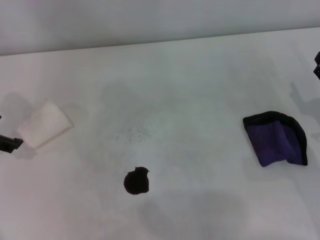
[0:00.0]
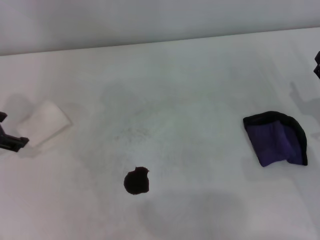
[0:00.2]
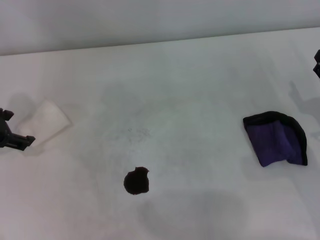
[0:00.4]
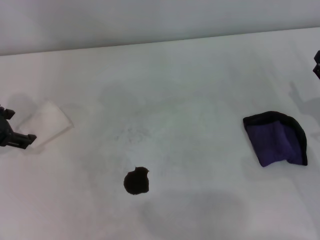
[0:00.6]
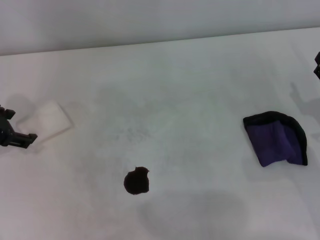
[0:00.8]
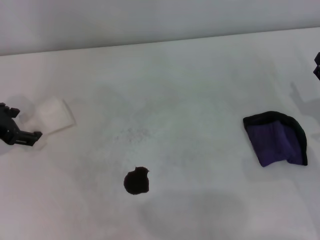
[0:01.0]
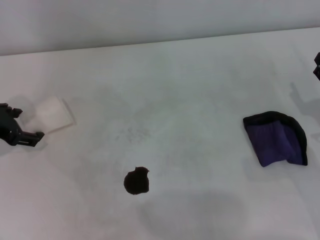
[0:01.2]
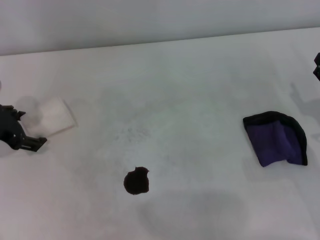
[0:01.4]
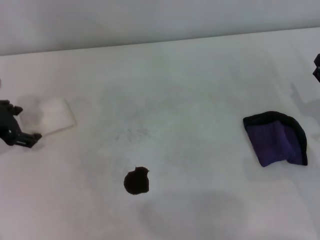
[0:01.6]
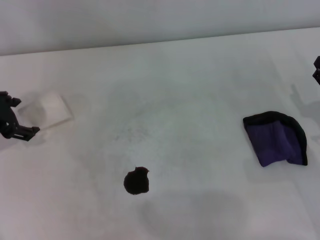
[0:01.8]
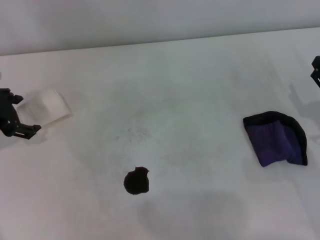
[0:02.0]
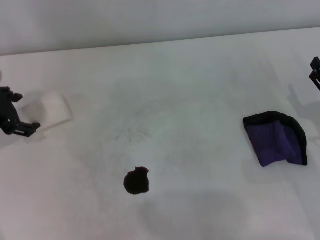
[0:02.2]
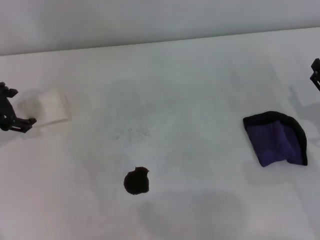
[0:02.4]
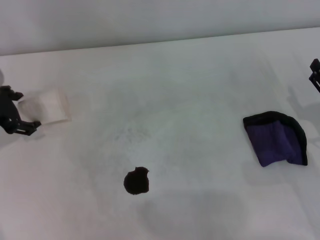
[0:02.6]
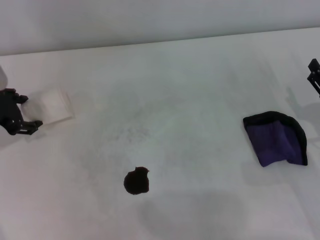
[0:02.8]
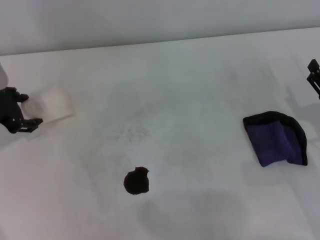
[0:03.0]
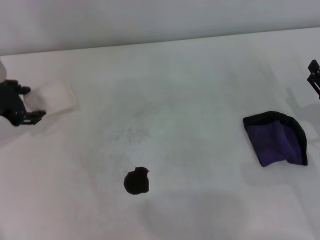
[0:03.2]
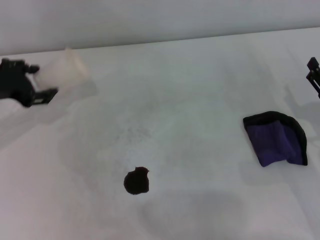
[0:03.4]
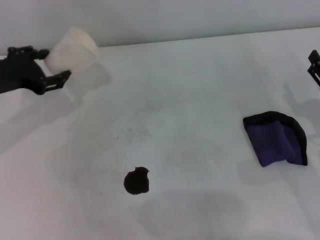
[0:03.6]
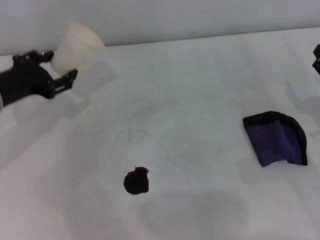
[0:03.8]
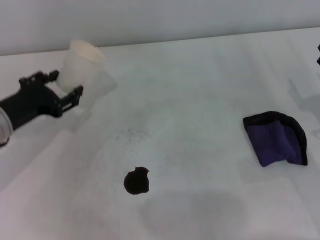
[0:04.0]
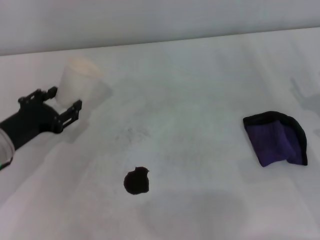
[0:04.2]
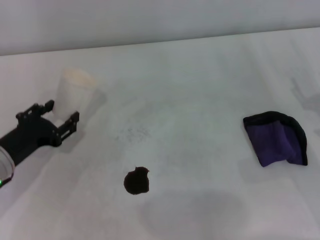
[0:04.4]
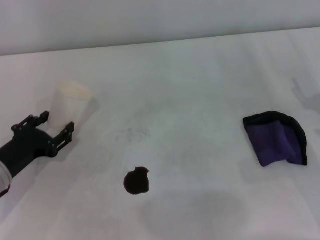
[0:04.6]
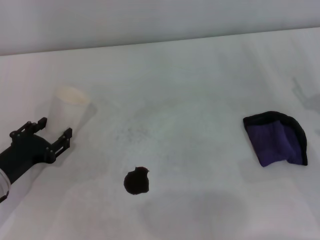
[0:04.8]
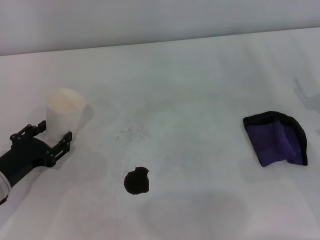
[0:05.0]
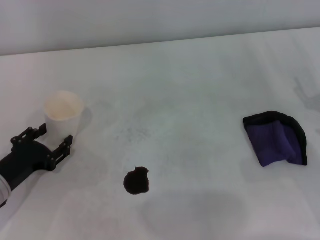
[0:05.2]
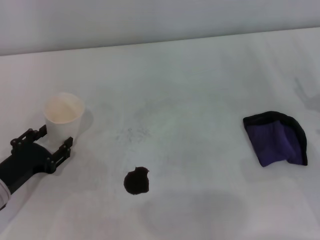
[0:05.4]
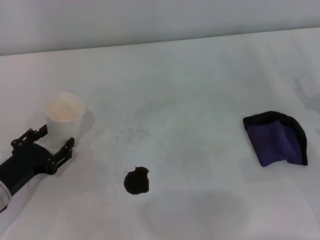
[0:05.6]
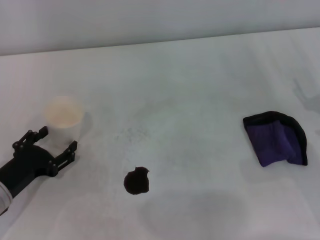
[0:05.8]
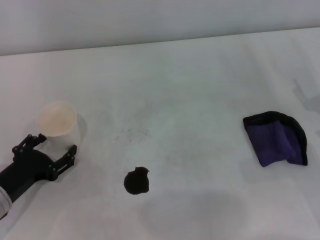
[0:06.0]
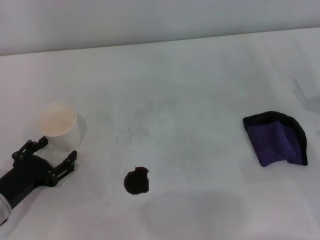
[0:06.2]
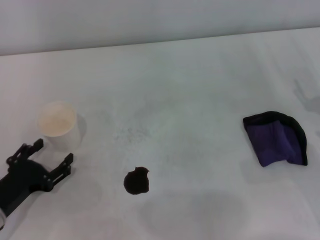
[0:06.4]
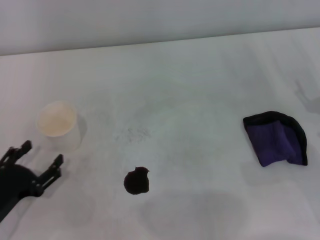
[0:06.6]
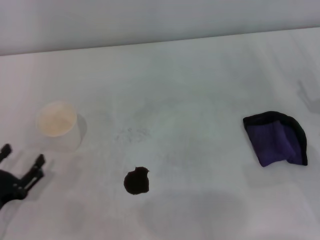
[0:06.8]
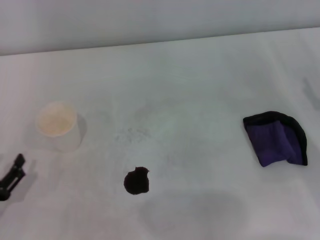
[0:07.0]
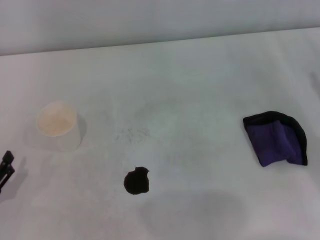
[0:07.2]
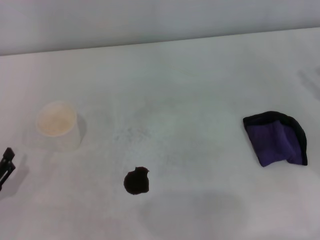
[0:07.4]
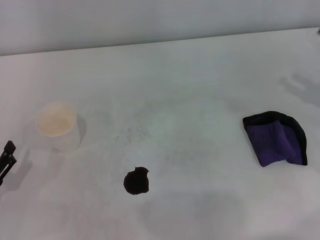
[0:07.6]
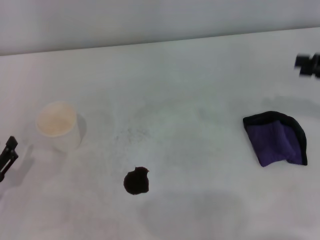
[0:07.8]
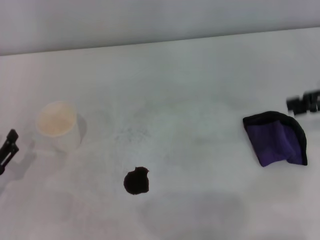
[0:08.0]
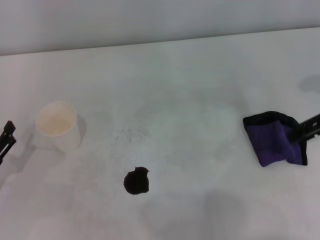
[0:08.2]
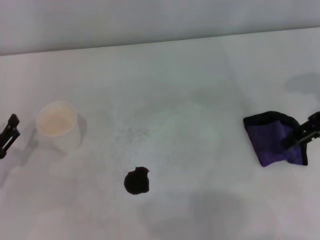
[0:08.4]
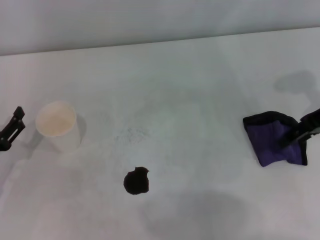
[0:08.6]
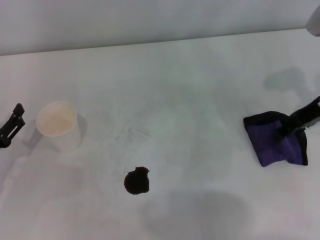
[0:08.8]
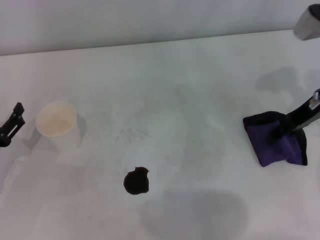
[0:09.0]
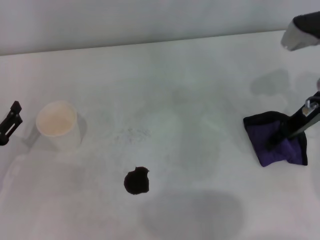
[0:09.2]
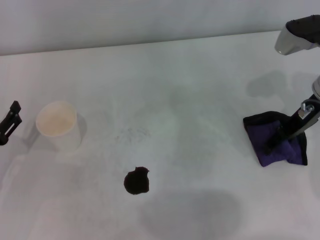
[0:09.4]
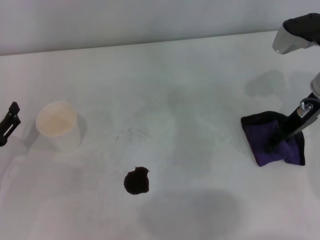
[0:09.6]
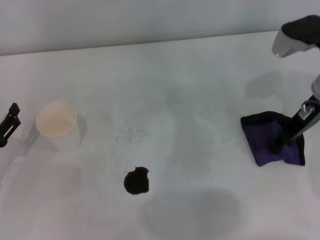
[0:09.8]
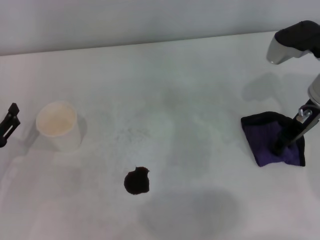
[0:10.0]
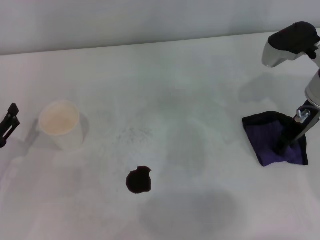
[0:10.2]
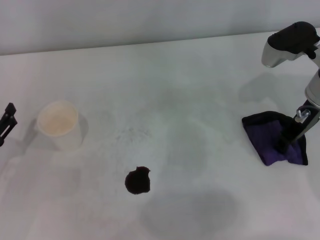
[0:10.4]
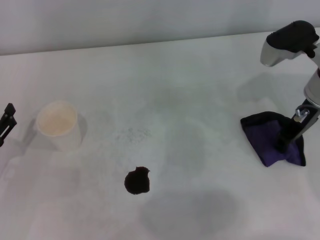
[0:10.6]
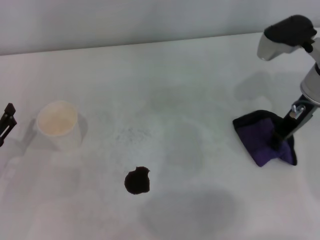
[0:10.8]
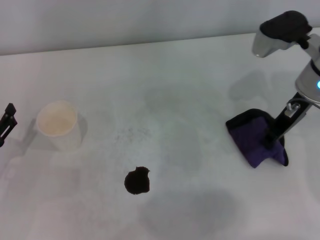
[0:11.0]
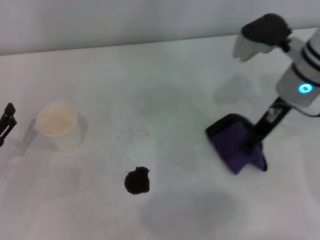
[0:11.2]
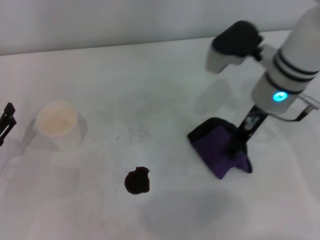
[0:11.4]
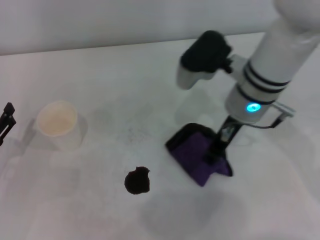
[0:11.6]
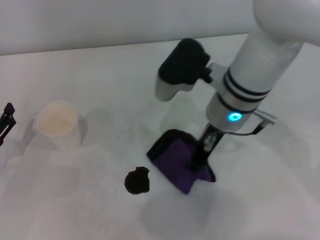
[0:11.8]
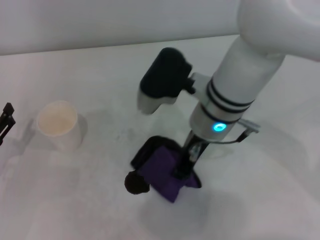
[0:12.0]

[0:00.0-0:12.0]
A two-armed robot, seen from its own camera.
Step, 0:00.0 to 0:02.8: Grasp the paper cup with the left gripper.
Step, 0:03.0 to 0:06.0: Stand the paper cup upright with the left gripper.
Step, 0:06.2 to 0:10.0: Grasp the rag with the right gripper.
0:00.0 to 0:01.6: The left gripper moves approximately 5 cm.
0:01.6 to 0:03.0: The left gripper closes.
0:03.0 to 0:04.4: The left gripper travels backward and downward by roughly 10 cm.
0:04.4 to 0:06.0: The left gripper moves some 5 cm, and opens.
0:06.0 to 0:07.6: The left gripper shifts about 5 cm backward.
0:07.6 to 0:09.0: The right gripper shifts about 15 cm to the left and forward. The left gripper goes about 5 cm forward.
0:09.0 to 0:10.4: The right gripper closes up.
0:10.4 to 0:12.0: The right gripper shifts approximately 20 cm to the left, and closes up.

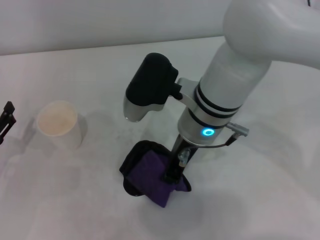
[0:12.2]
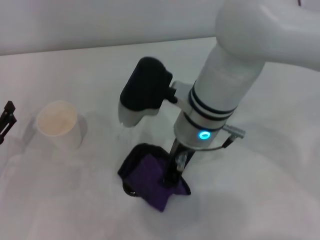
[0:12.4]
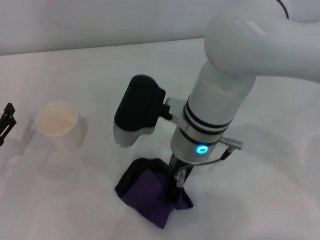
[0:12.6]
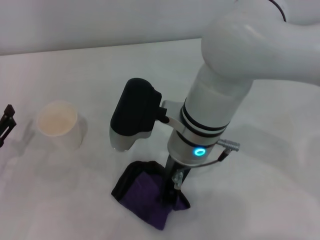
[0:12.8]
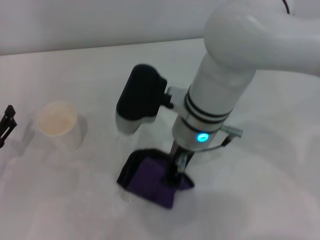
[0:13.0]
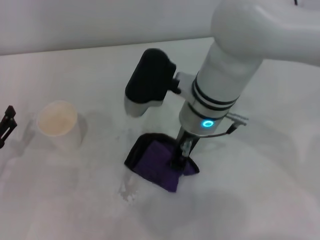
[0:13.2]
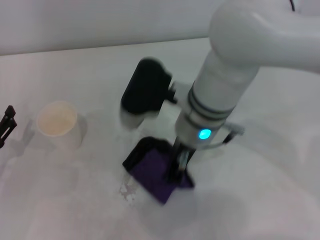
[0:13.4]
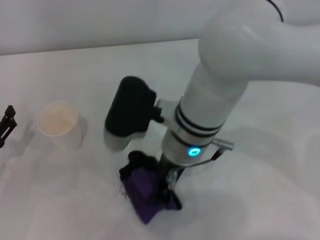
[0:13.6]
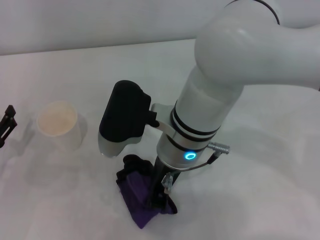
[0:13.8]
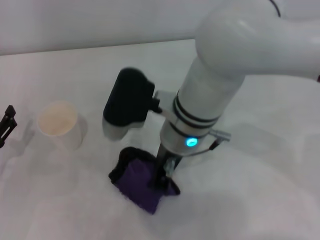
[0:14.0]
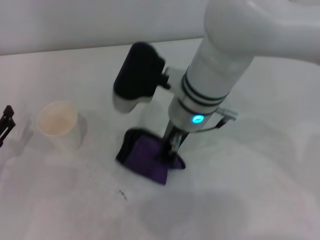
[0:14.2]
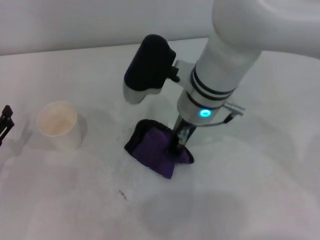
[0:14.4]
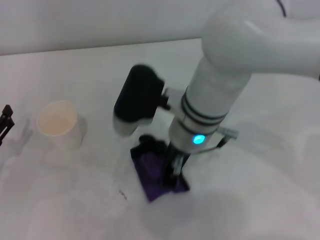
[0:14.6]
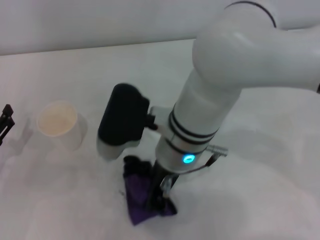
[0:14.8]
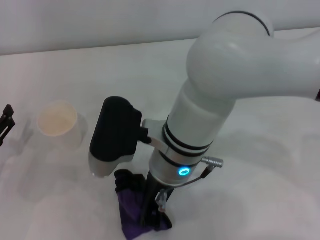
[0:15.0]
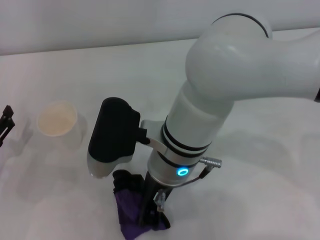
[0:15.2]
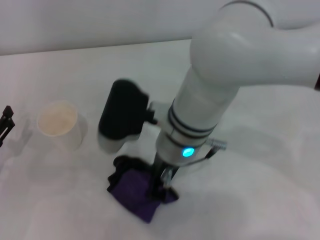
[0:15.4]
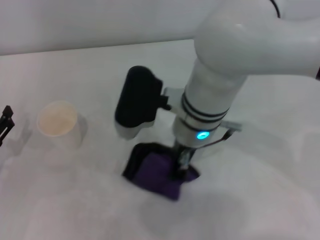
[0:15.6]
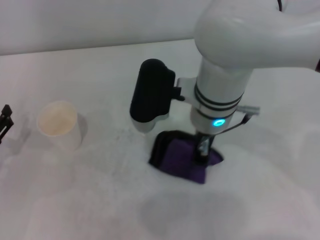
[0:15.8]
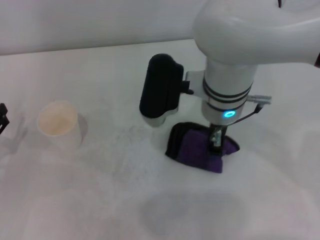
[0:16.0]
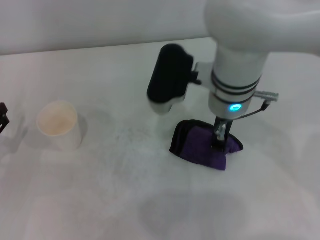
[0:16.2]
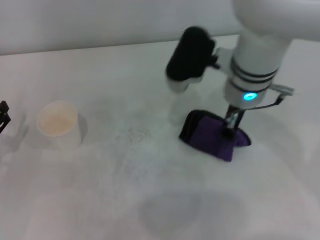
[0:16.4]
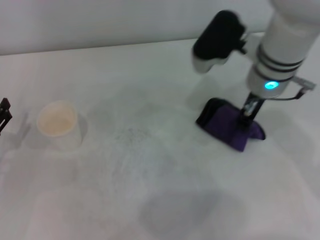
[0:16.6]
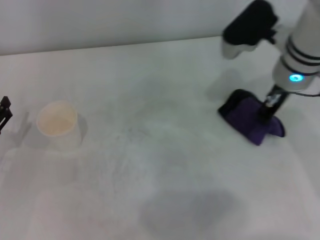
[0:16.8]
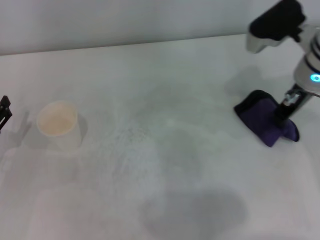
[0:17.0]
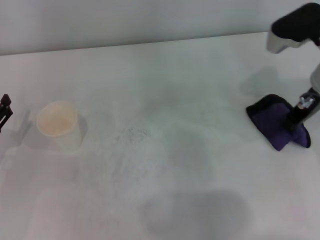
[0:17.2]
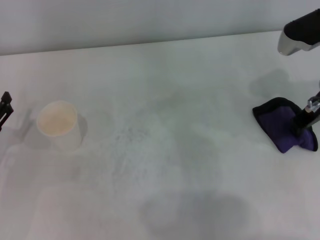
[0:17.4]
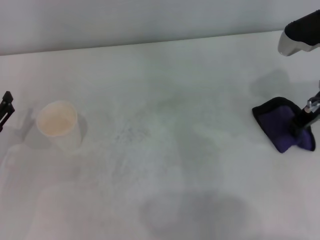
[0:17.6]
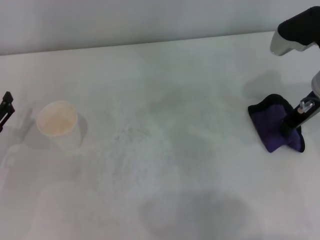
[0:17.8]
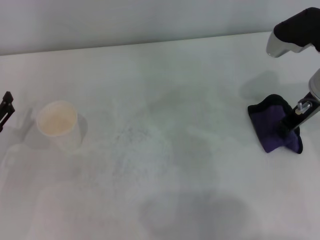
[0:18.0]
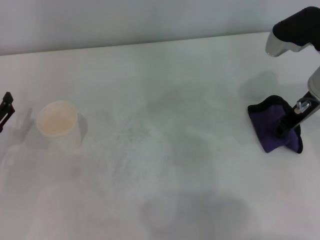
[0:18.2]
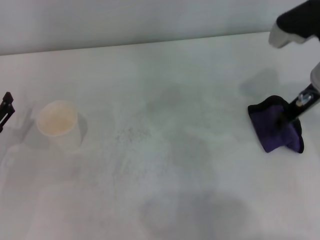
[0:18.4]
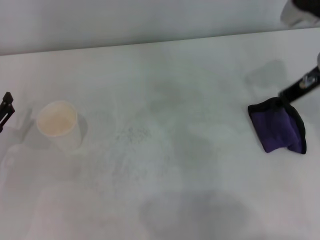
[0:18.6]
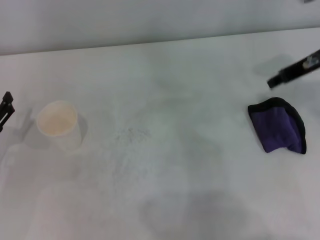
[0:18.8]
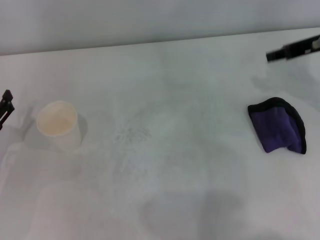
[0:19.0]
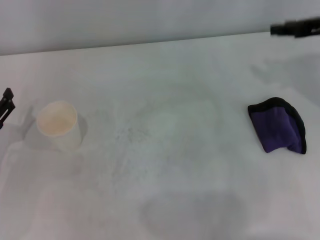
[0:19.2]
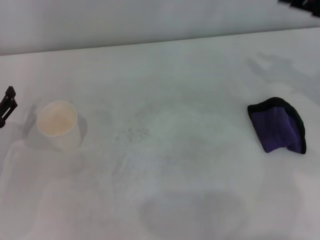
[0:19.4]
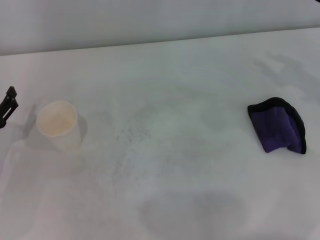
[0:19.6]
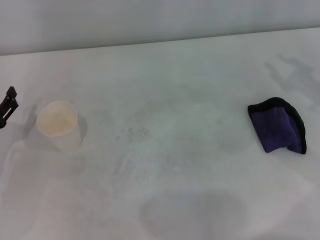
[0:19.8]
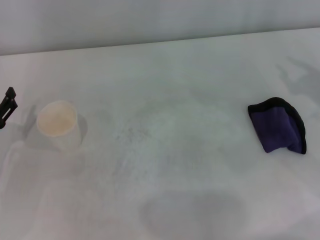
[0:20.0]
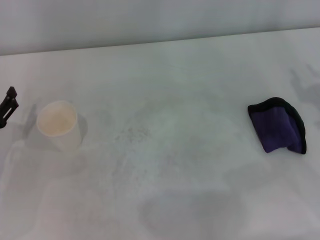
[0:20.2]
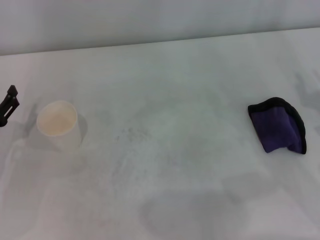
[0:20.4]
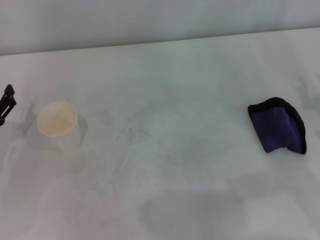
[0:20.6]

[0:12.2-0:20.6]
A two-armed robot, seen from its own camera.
Step, 0:12.2 to 0:17.6: Wipe the stains off the table with the right gripper.
Step, 0:17.8 to 0:18.4: Place the rag on the table with the right gripper.
0:12.2 to 0:15.0: The grippers move only a little.
0:15.0 to 0:16.4: The right gripper heads to the right and forward, covering roughly 15 cm.
0:16.4 to 0:17.8: The right gripper travels to the right by roughly 15 cm.
0:17.8 to 0:19.2: The right gripper travels to the right and upward by approximately 10 cm, and opens up.
0:19.2 to 0:20.6: The right gripper heads backward and downward, covering approximately 20 cm.

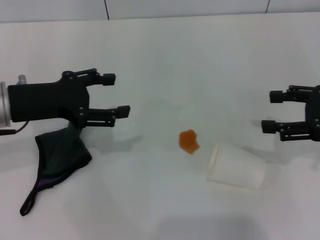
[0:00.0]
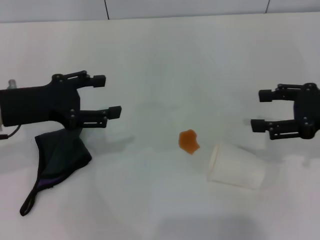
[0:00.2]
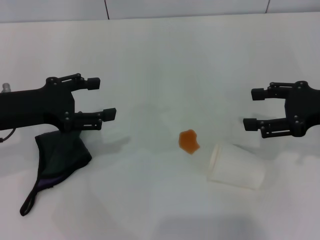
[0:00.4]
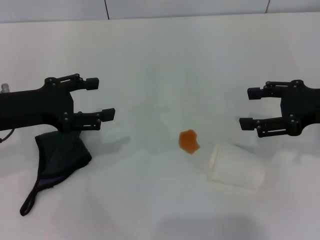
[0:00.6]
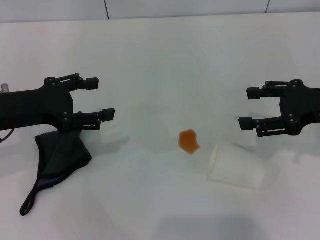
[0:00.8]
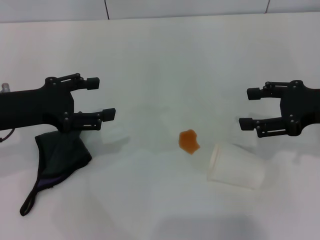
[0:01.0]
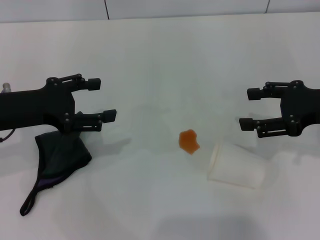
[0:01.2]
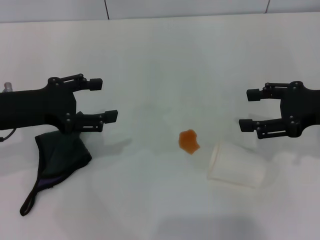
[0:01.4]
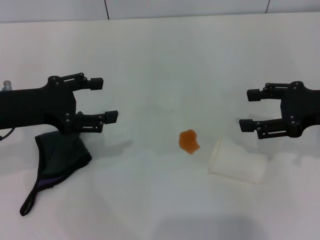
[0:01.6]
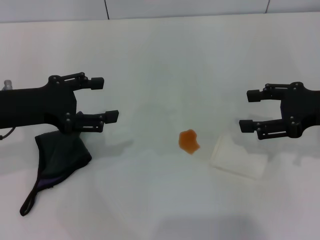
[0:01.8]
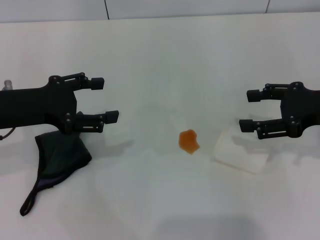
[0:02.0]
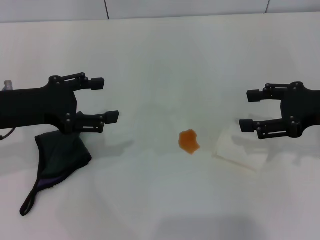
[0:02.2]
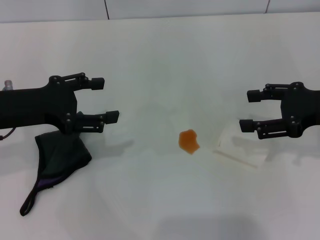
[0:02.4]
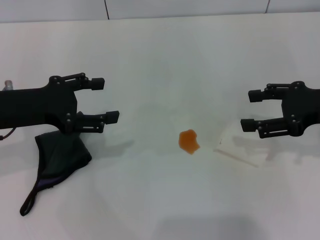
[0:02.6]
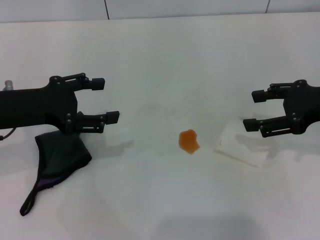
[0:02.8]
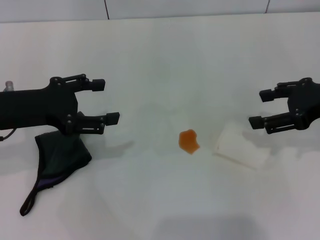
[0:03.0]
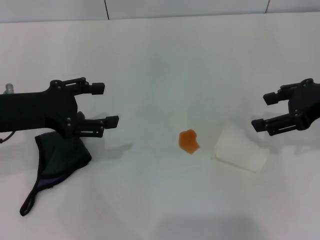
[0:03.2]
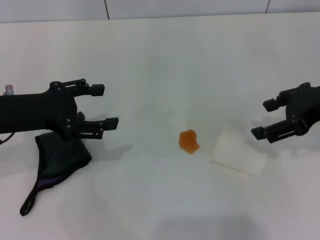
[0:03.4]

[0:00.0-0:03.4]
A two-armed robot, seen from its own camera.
0:00.0 to 0:01.6: The grippers move only a little.
0:01.6 to 0:03.4: The right gripper ends up approximately 5 cm from where it was.
